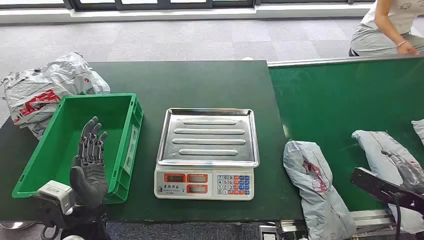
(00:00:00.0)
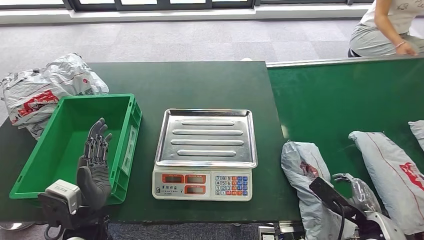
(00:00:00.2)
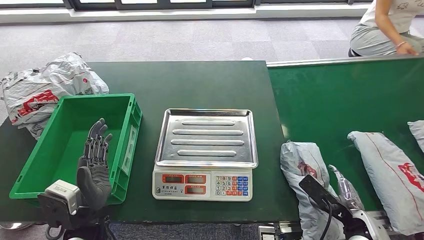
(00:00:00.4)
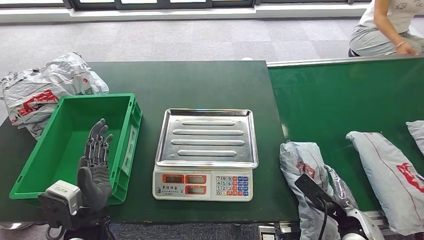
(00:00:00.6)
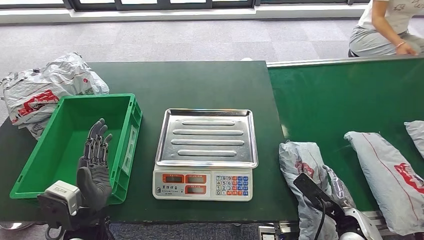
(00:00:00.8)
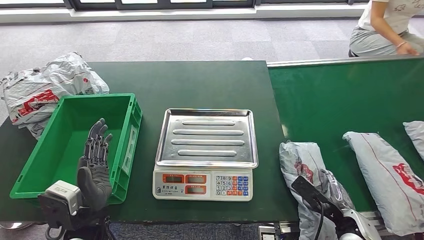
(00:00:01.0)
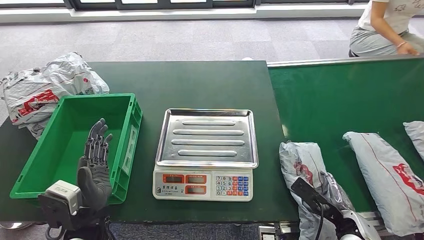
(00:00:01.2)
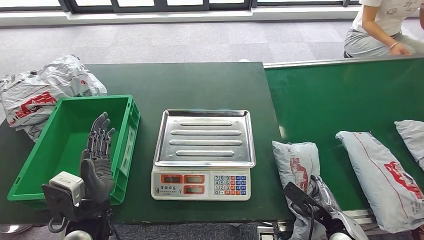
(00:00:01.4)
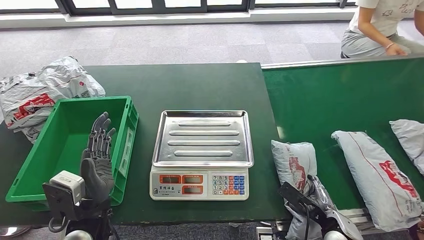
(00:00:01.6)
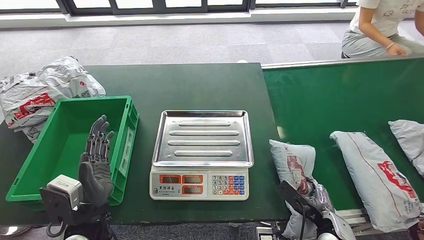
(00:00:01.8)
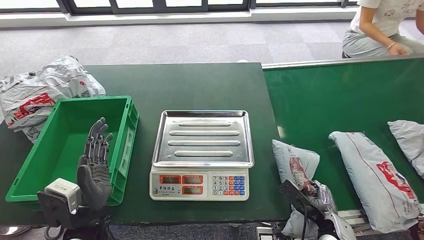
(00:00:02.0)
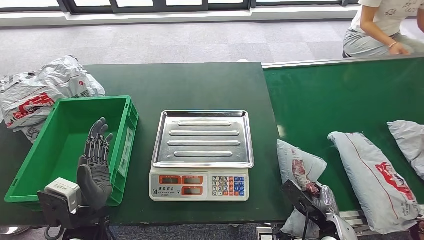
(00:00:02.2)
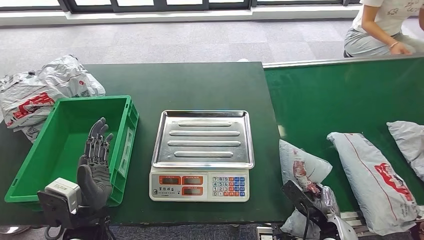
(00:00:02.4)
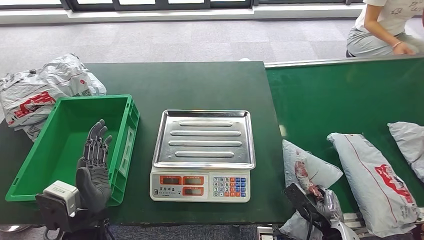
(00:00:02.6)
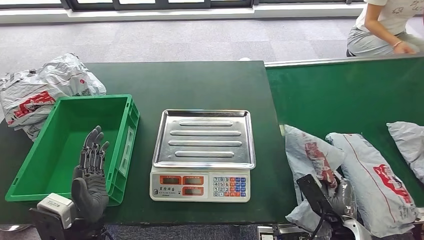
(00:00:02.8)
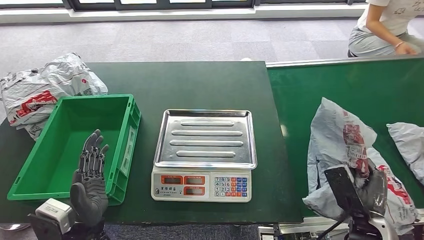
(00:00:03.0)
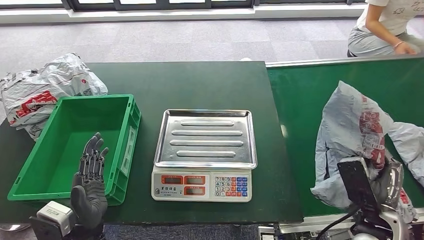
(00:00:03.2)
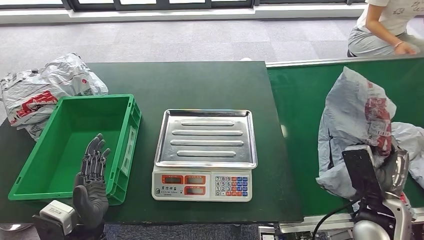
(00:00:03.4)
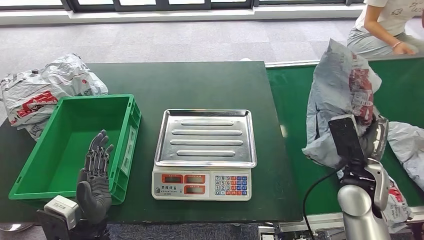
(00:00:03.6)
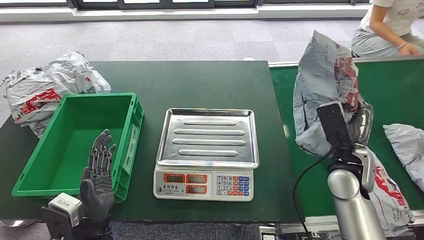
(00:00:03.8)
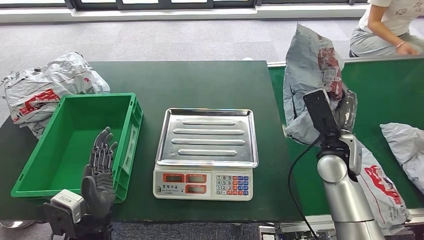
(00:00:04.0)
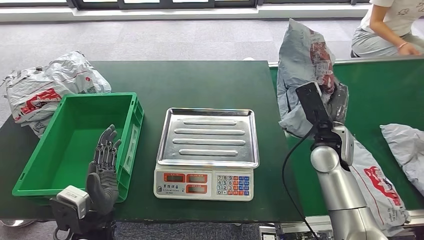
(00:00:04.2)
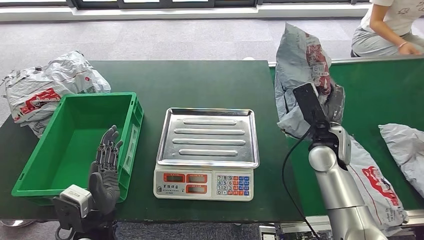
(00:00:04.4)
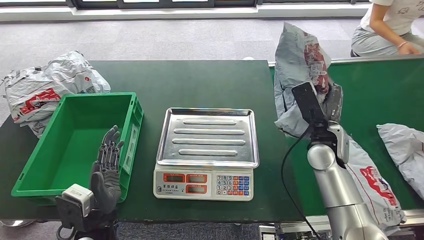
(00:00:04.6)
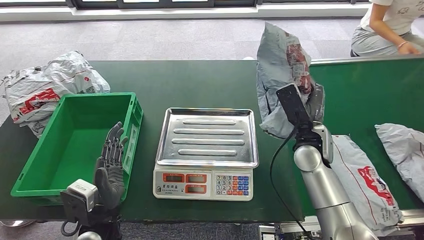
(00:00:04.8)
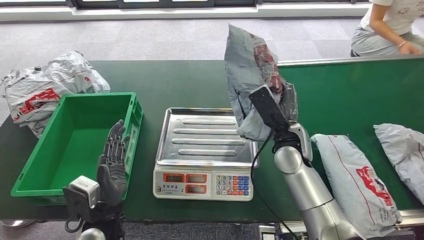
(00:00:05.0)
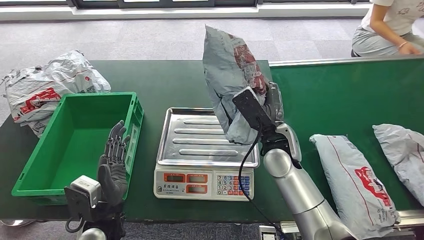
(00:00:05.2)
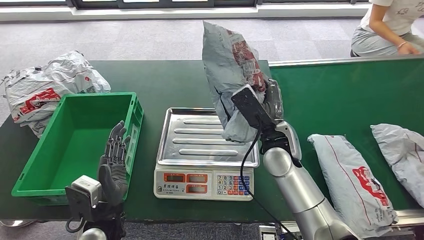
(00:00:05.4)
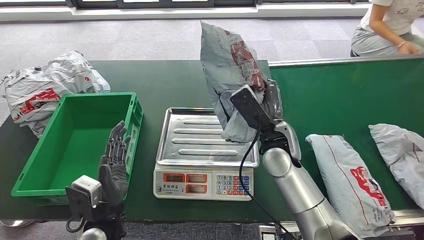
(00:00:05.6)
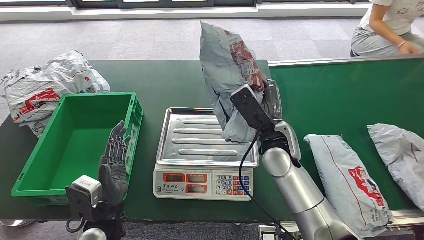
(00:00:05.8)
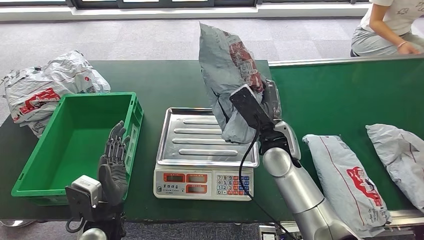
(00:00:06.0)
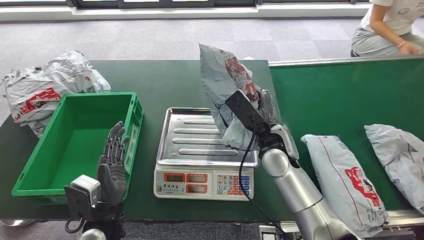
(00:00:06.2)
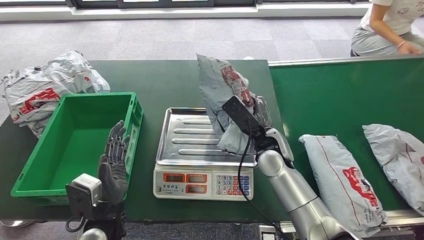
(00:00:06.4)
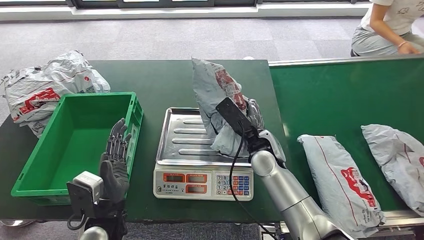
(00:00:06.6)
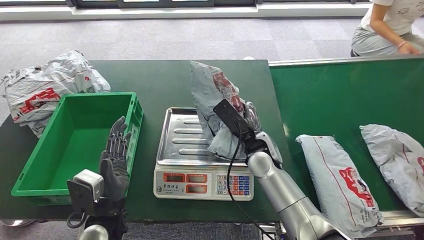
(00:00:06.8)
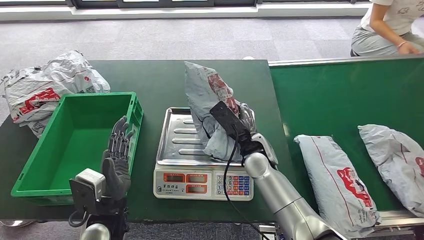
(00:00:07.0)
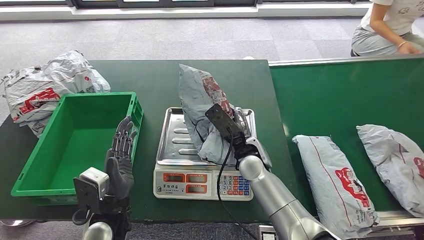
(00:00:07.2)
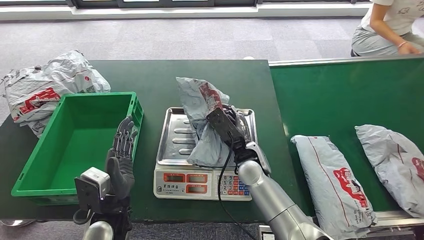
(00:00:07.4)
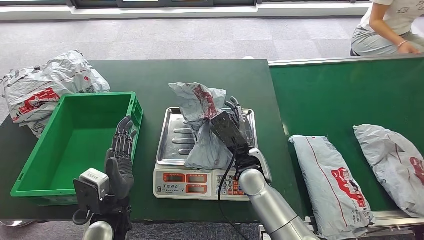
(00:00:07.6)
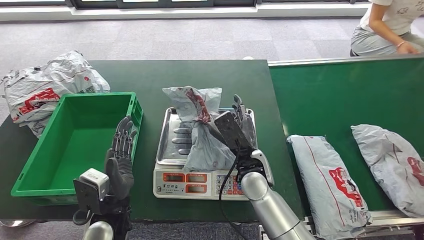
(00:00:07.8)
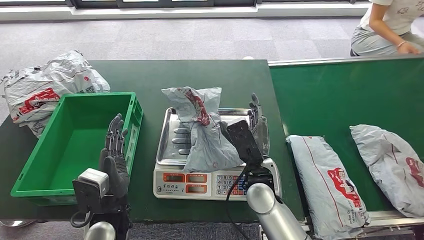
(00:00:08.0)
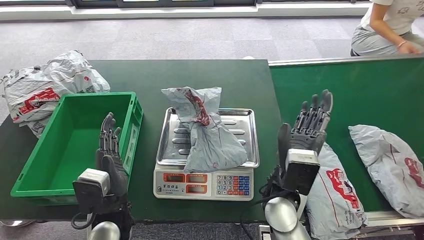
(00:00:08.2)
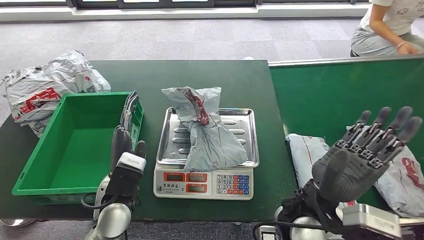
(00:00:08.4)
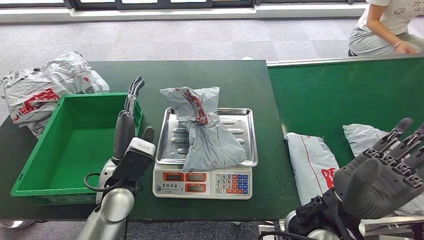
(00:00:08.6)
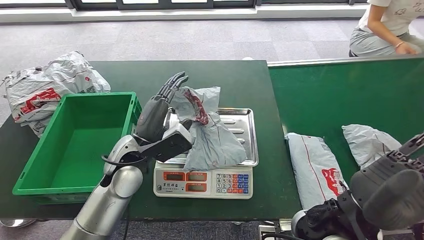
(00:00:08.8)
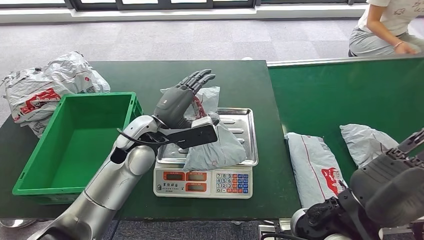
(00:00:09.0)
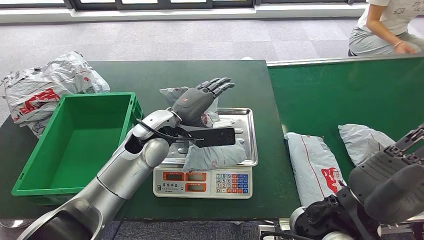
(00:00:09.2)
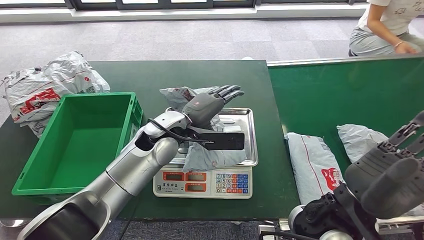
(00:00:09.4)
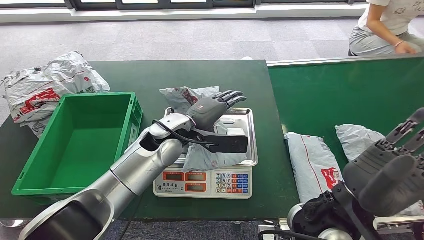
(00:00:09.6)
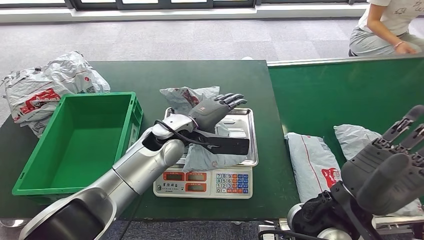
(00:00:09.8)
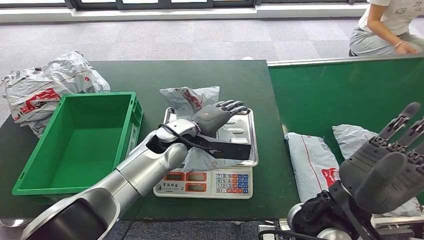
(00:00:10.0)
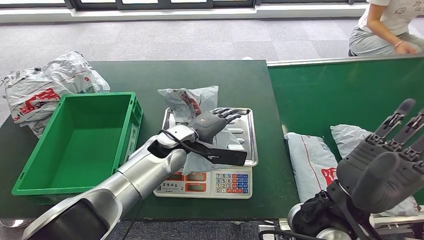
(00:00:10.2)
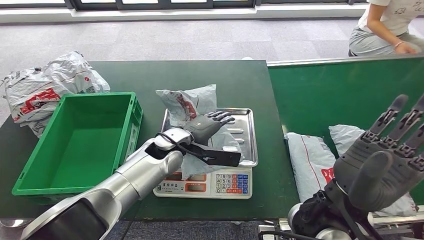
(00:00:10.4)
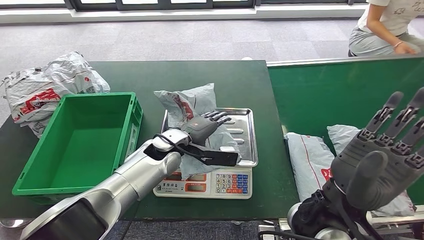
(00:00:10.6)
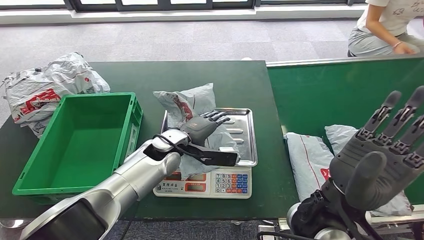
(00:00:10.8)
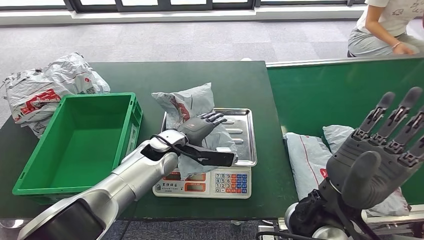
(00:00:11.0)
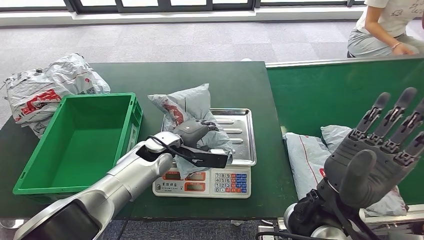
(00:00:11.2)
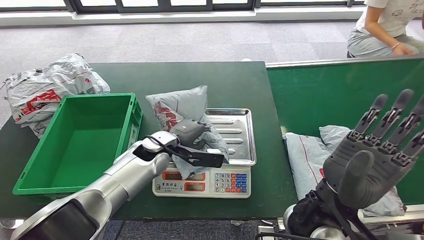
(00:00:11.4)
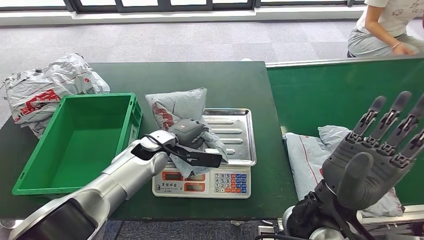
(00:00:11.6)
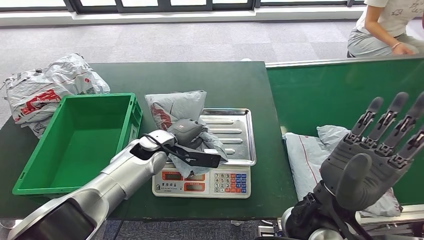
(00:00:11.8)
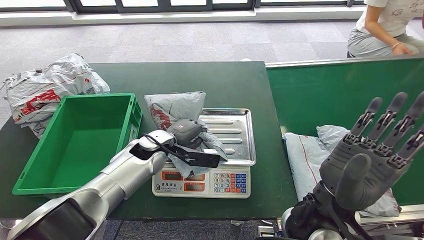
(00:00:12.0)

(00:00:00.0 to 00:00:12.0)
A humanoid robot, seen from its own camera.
Step, 00:00:00.0 - 00:00:04.2: Take the parcel off the conveyor belt.
Step, 00:00:04.4 - 00:00:08.0: Place the parcel onto the inbound machine.
00:00:09.0 - 00:00:10.4: The left hand travels downward by roughly 5 cm.

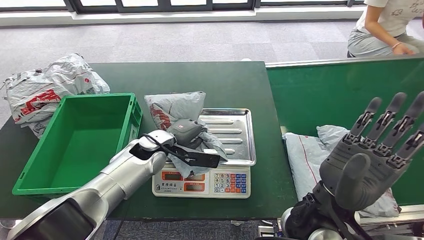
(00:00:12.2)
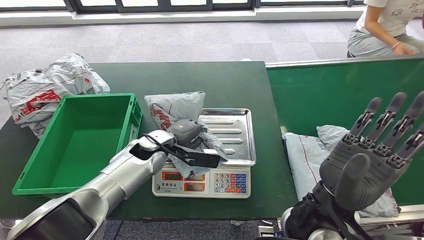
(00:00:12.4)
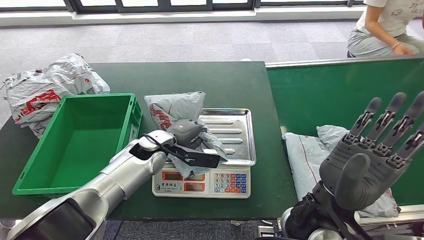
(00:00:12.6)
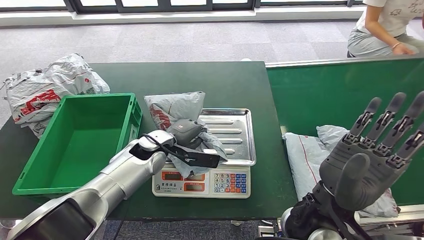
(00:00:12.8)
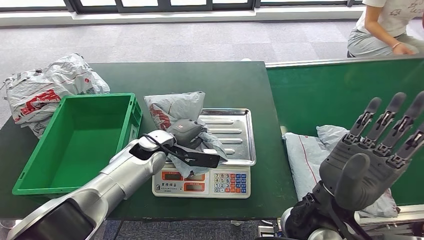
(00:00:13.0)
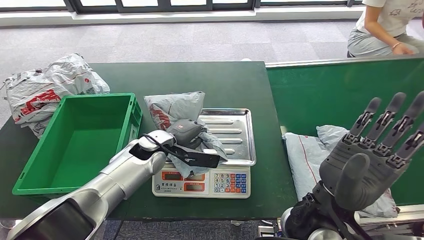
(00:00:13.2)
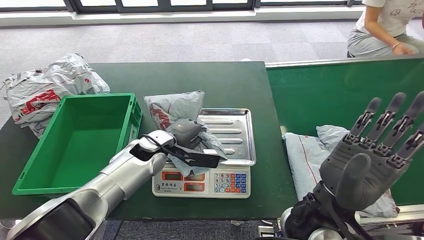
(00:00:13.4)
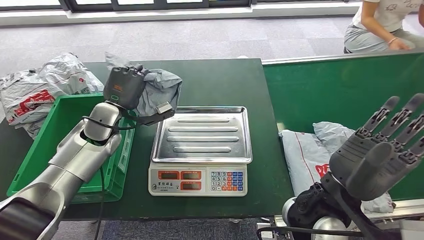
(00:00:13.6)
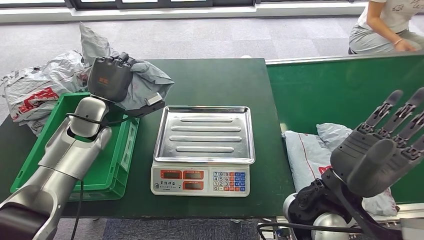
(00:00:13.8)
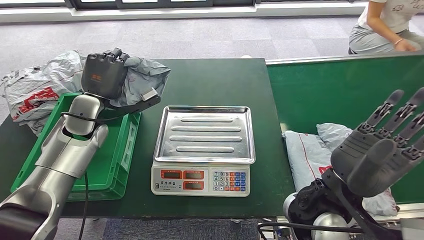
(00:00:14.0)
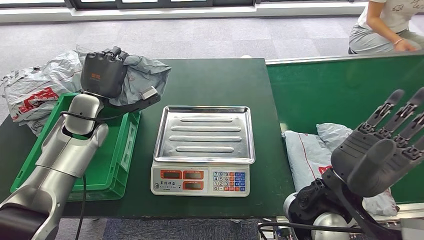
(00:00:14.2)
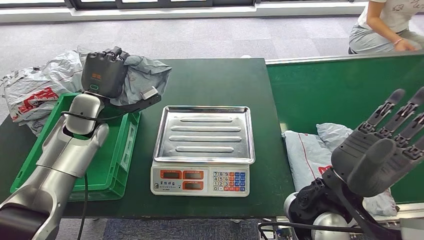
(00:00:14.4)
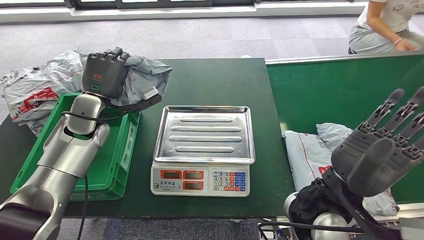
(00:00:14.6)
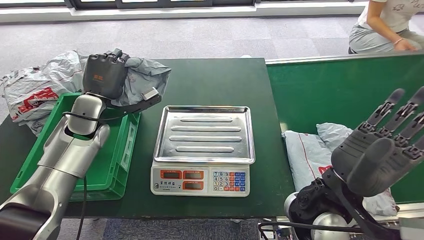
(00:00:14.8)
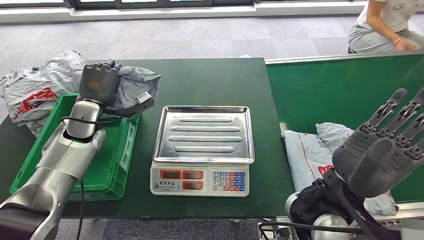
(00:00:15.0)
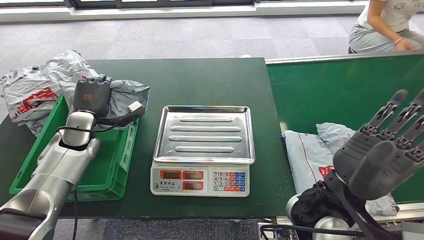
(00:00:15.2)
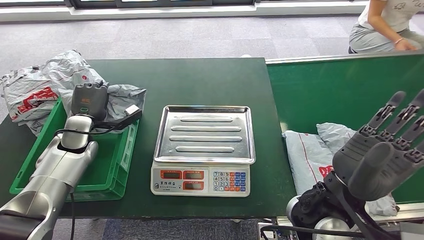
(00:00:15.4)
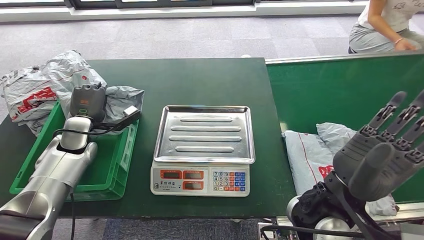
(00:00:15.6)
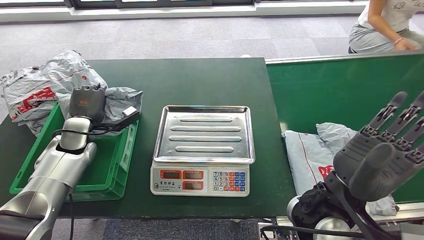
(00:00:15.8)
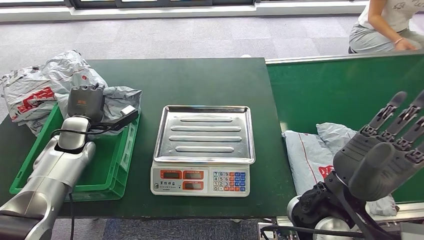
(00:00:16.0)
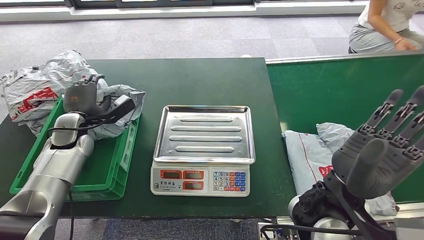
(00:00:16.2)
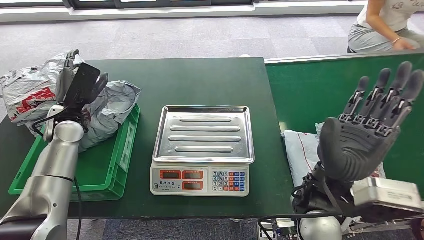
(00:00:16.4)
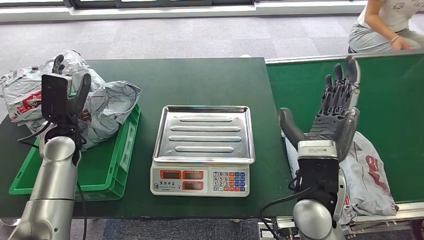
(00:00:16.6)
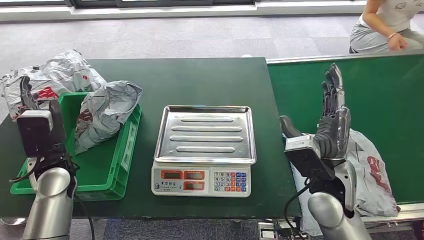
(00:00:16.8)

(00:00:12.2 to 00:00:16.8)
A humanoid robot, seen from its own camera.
Step, 00:00:14.0 - 00:00:16.6: Put the parcel inside the courier box.
00:00:13.8 - 00:00:15.2: The left hand heads to the left and downward, covering about 10 cm.
